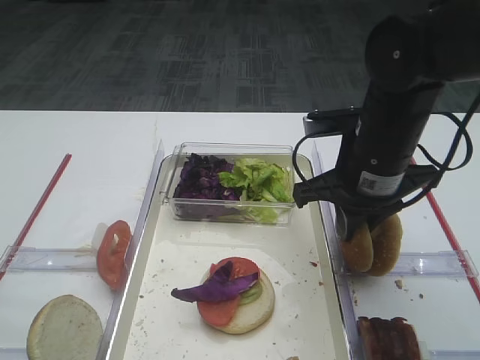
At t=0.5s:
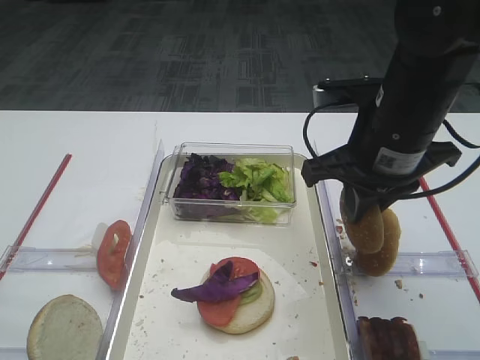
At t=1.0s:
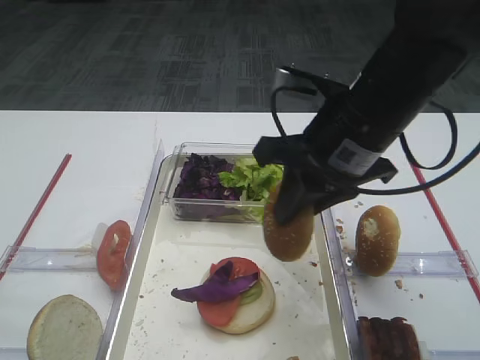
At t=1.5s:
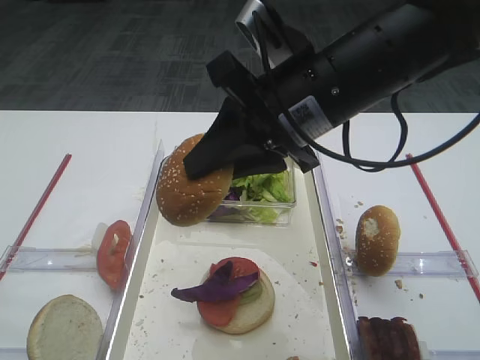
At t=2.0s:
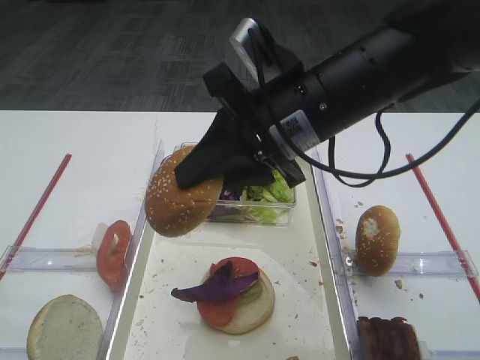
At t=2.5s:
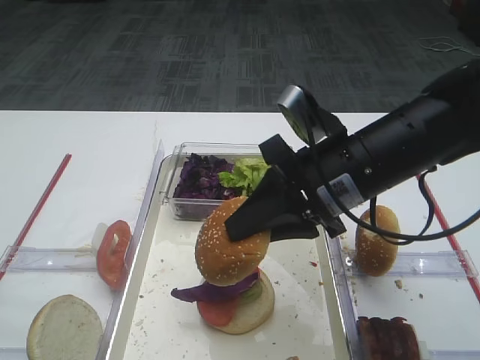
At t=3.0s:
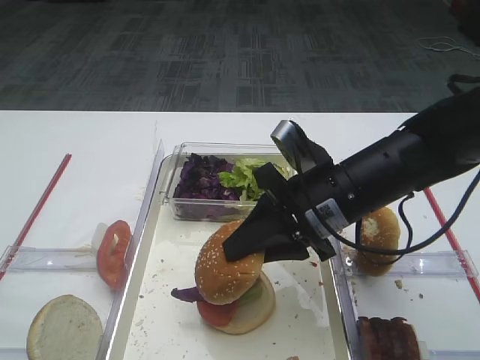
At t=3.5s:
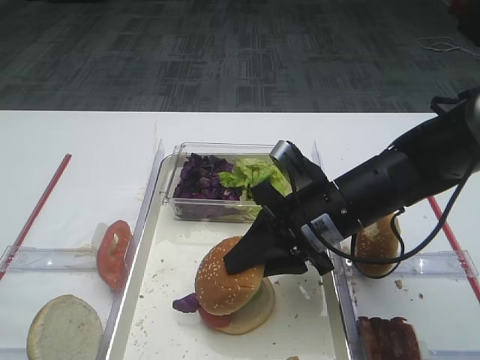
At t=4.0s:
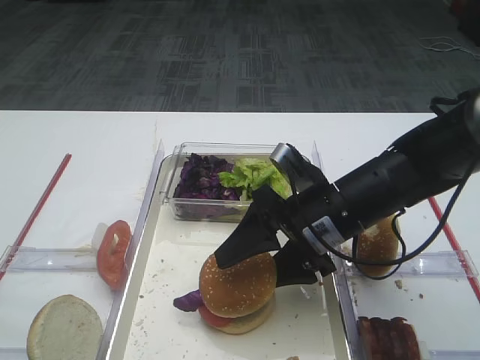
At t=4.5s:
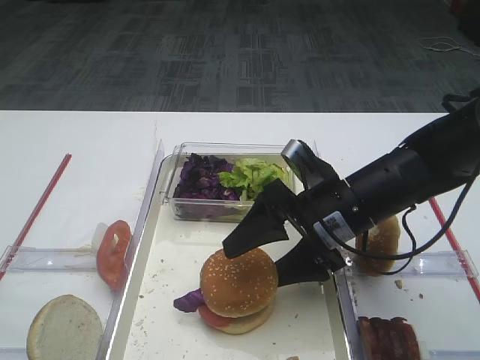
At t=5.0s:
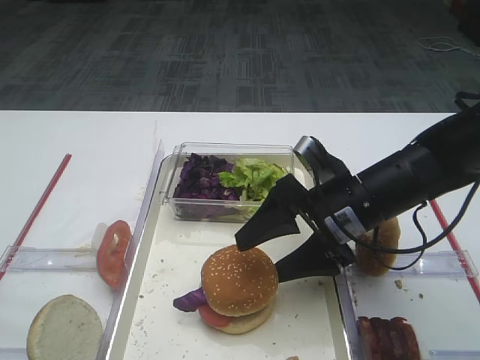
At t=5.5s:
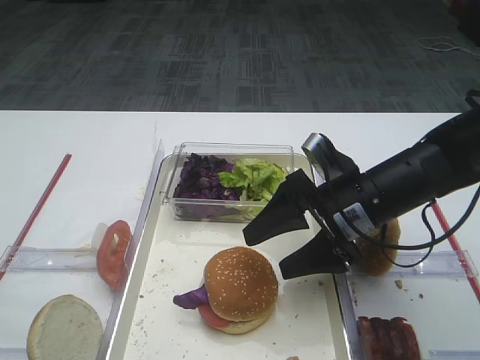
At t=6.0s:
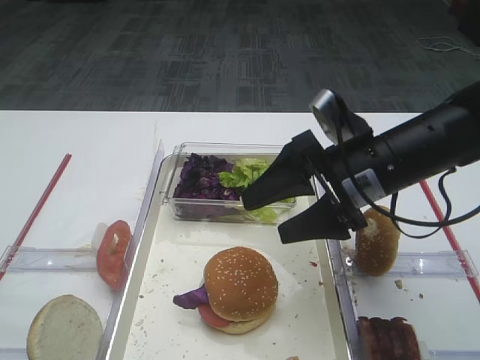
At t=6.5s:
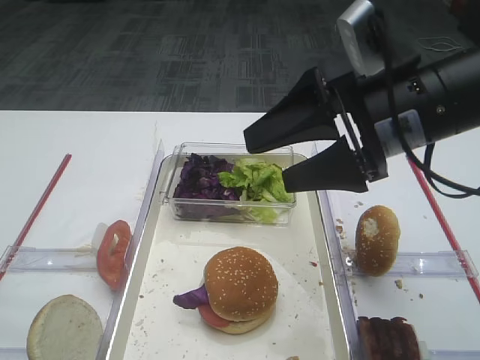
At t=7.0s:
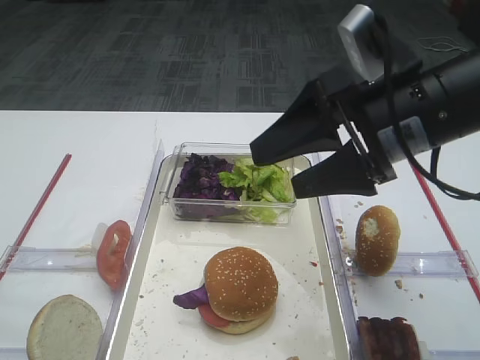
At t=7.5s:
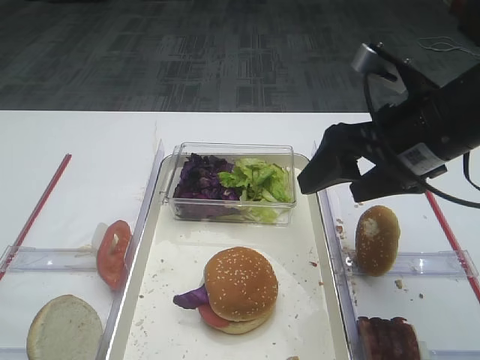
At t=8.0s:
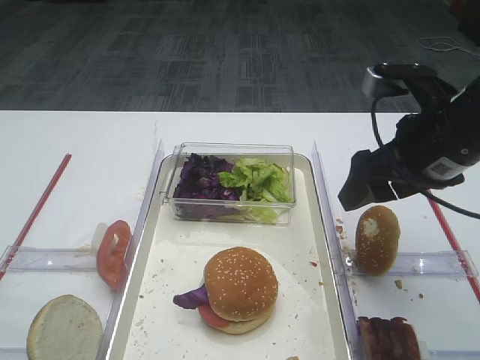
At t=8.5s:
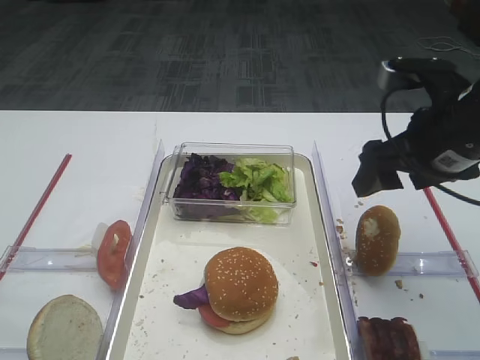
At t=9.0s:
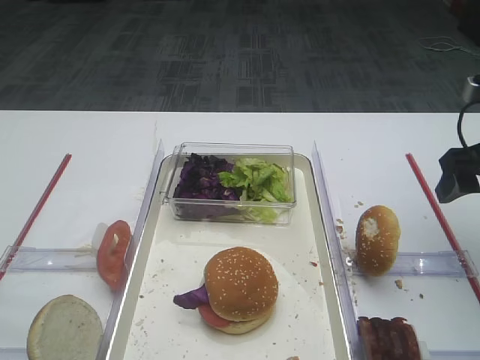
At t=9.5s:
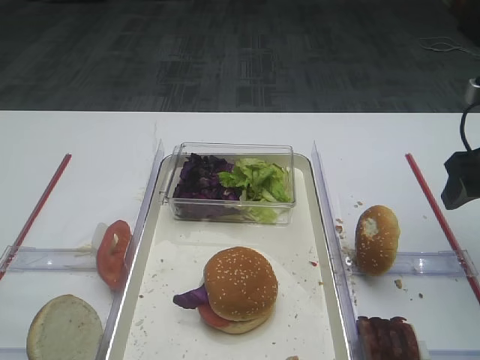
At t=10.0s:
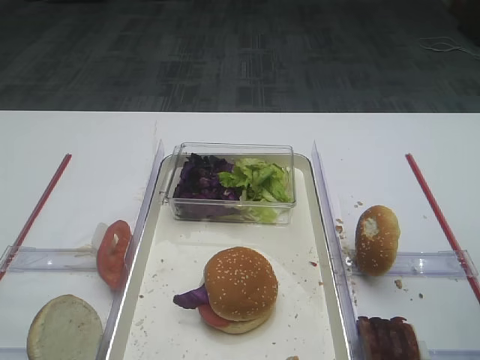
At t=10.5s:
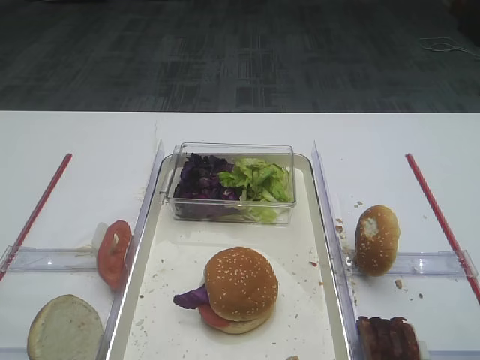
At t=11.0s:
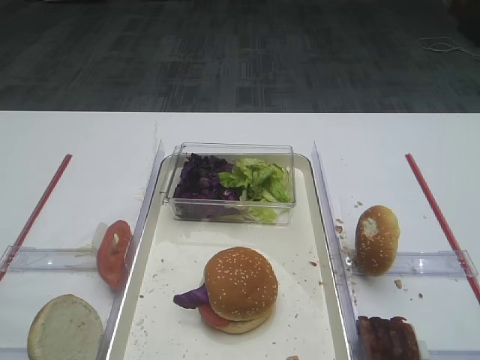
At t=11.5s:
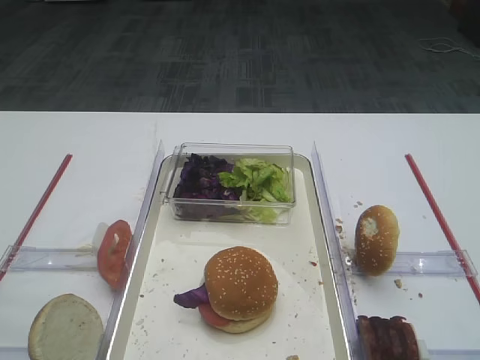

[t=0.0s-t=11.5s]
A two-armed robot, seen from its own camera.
Step, t=1.0s to t=5.5s: Place the hamburger lid on the purple cabbage with the right gripper.
t=0.0s to t=2.0s: The right gripper is displaced upward and to the left by about 10 cm.
t=2.0s to t=4.0s: The right gripper travels downward by approximately 15 cm, and opens its fingers.
t=4.0s to t=6.0s: The right gripper changes place by about 5 cm.
t=6.0s to t=7.5s: The right gripper goes some 5 cm upward.
t=7.5s to t=9.5s: The right gripper shifts about 10 cm to the right.
t=9.5s to t=11.5s: The right gripper is displaced backward by some 30 cm.

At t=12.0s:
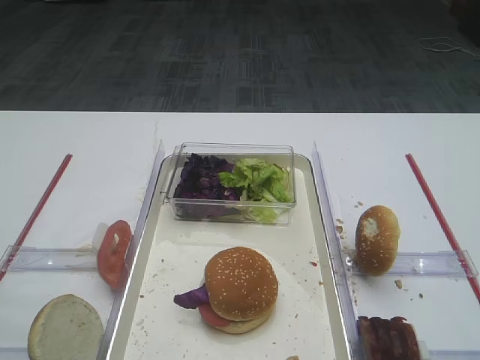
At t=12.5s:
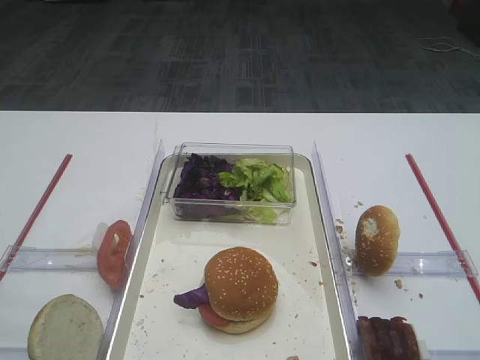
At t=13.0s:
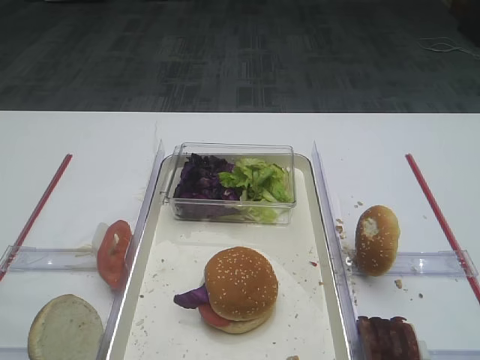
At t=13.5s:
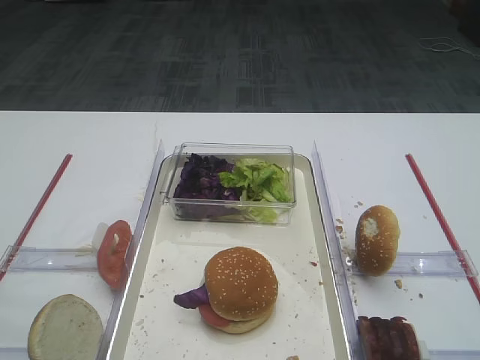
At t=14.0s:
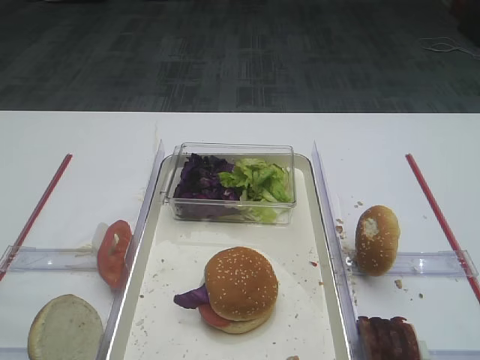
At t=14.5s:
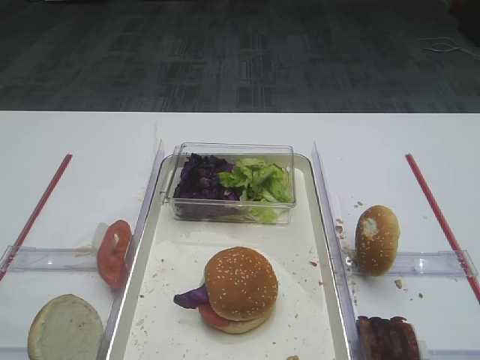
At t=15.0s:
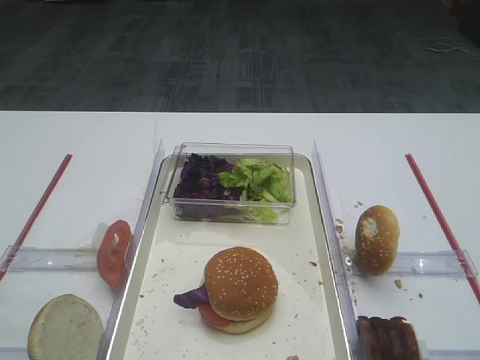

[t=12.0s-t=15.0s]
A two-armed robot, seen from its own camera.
t=12.0s to t=15.0s: Both grippers stay about where they are.

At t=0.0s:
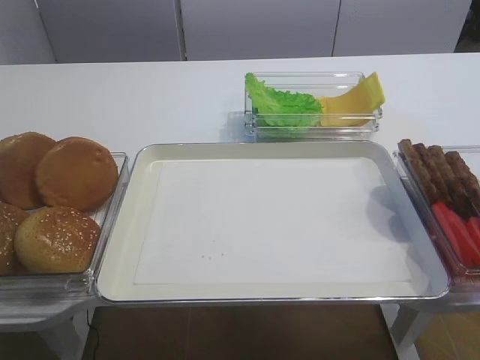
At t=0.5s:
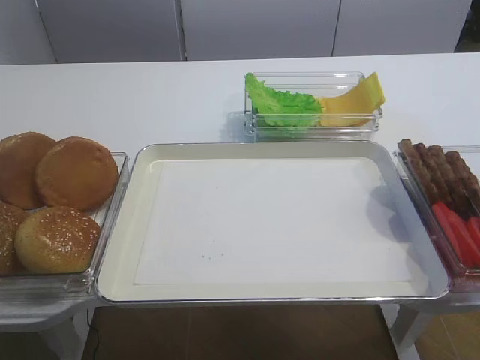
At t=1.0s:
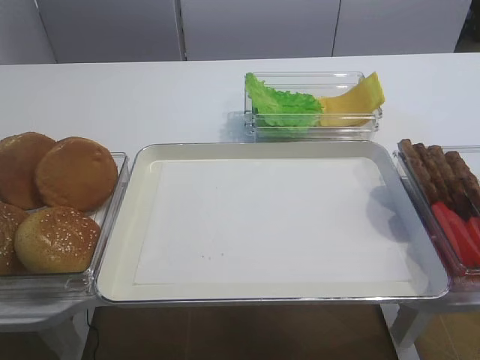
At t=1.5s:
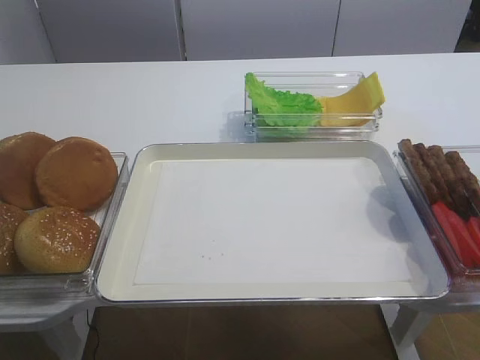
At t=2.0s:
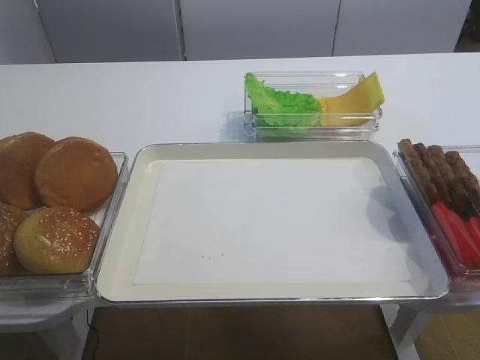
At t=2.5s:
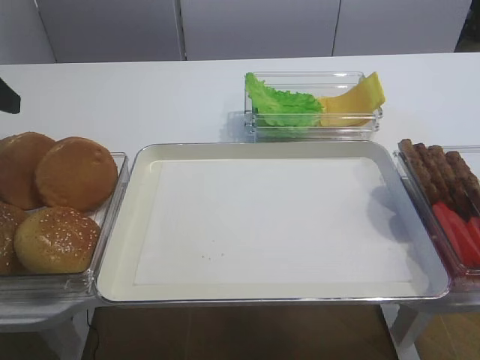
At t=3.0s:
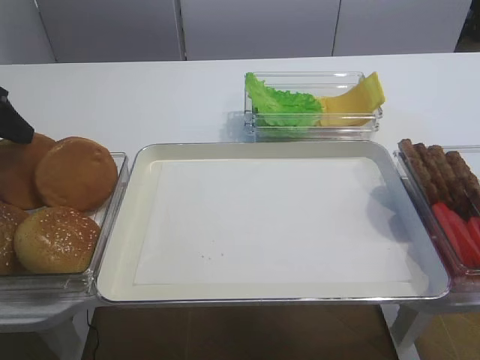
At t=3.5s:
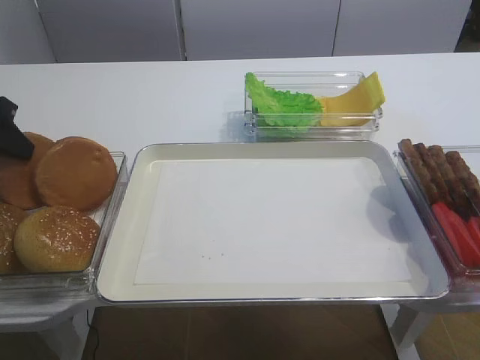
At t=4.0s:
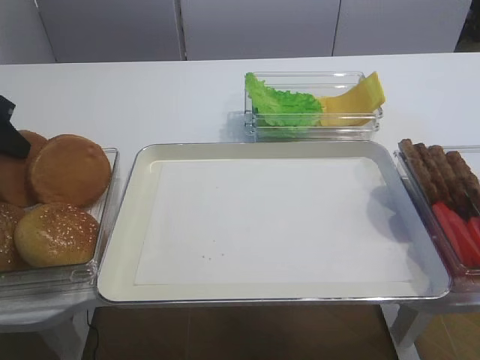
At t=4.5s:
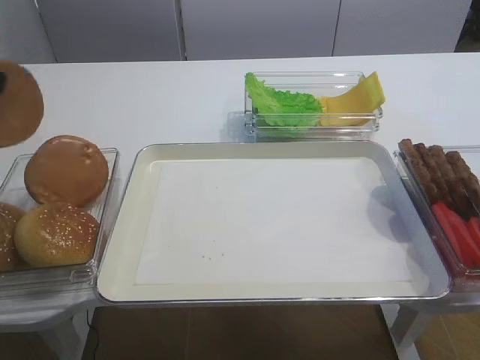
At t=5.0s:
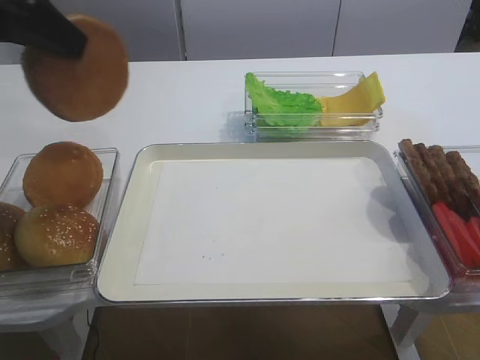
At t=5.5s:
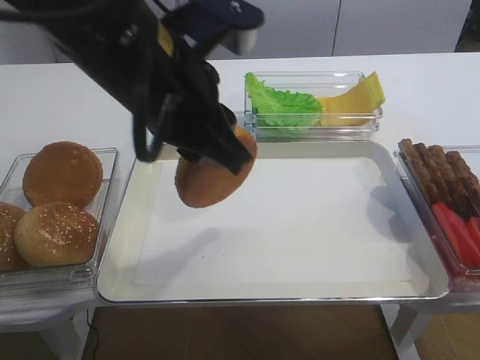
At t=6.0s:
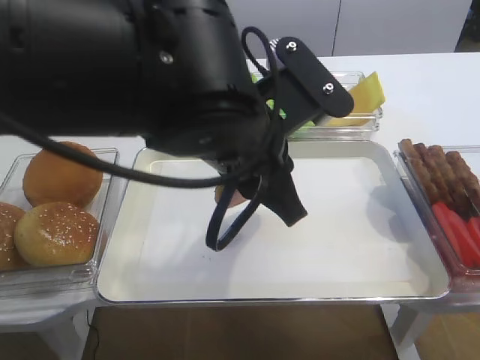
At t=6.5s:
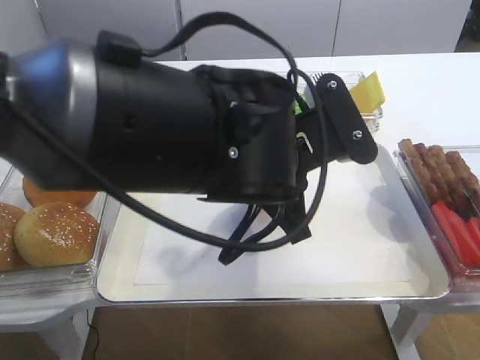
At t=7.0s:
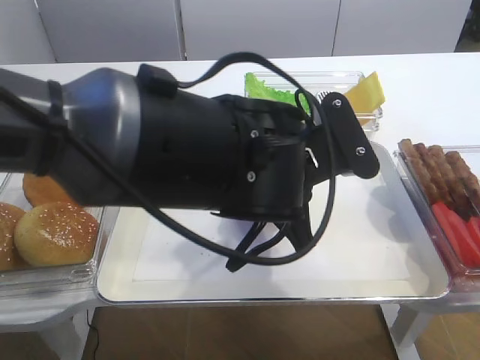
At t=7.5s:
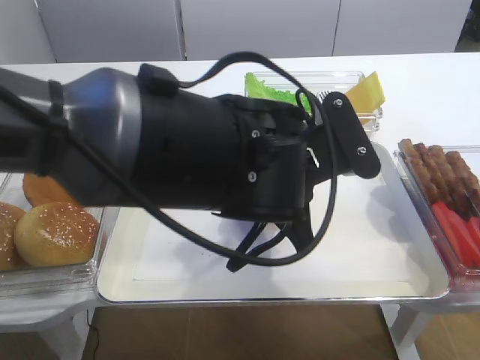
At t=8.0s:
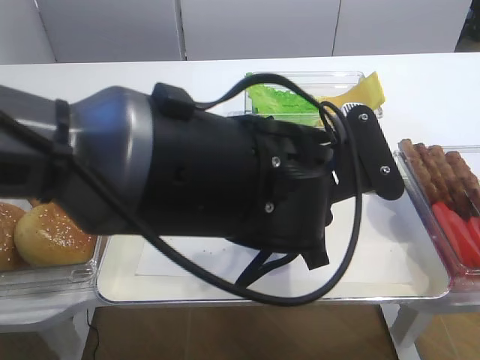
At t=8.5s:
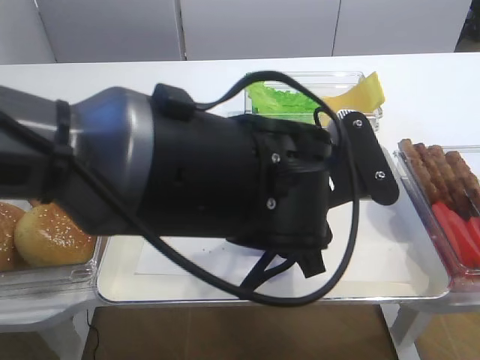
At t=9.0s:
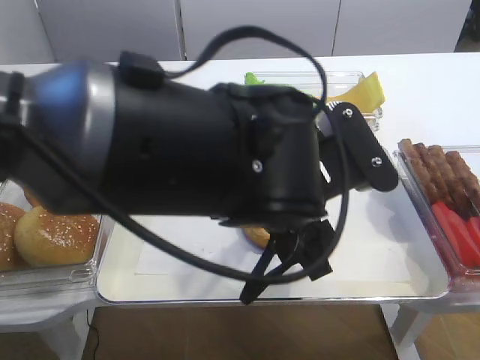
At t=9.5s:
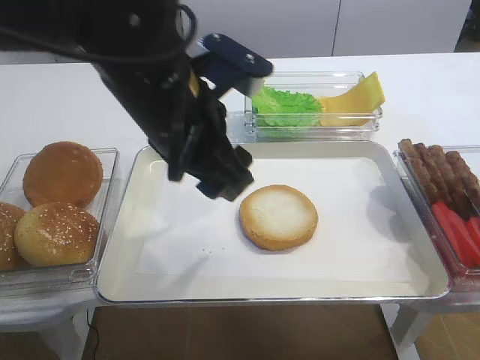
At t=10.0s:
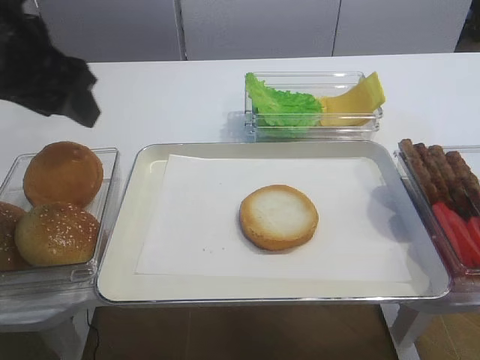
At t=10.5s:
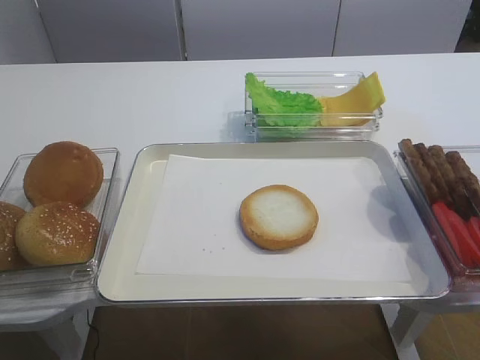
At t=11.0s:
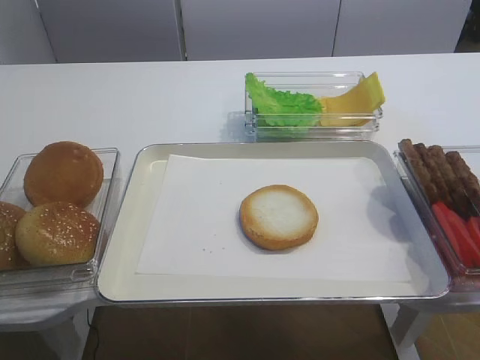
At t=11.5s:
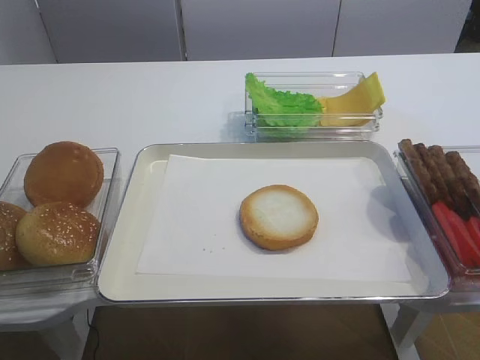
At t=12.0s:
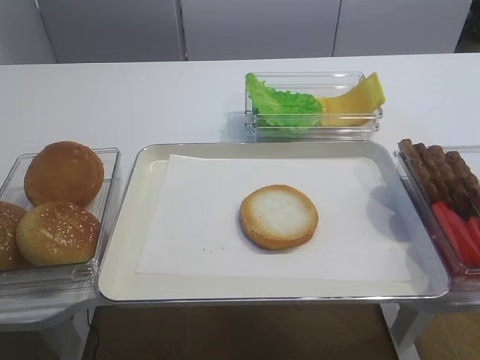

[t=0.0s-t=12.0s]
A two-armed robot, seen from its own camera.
Step, t=0.0s to t=4.5s: Pick up the bread slice with the left gripper.
Step, t=5.0s to t=9.5s: Place the bread slice on the tray with the left gripper.
t=2.0s to t=4.0s: The left gripper goes about 10 cm forward and downward, and closes.
t=4.0s to t=6.0s: The left gripper goes approximately 30 cm to the right.
t=6.0s to t=8.0s: The left gripper moves roughly 5 cm, and opens up.
t=8.0s to t=10.0s: The left gripper shifts some 25 cm to the left and upward.
t=10.0s to t=12.0s: The left gripper heads backward, covering some 30 cm.
